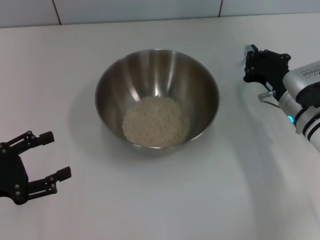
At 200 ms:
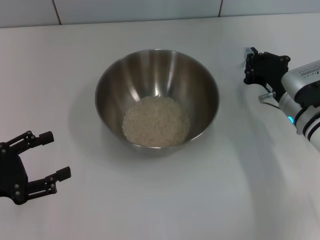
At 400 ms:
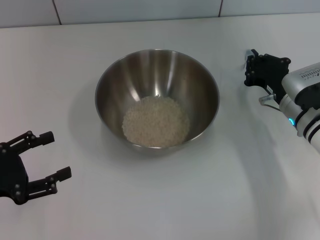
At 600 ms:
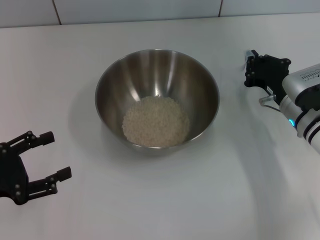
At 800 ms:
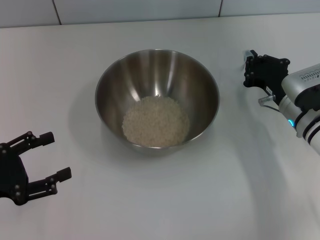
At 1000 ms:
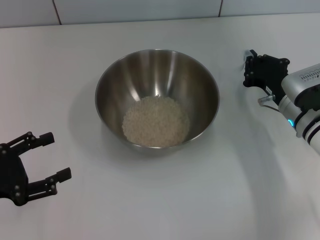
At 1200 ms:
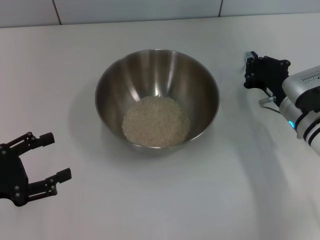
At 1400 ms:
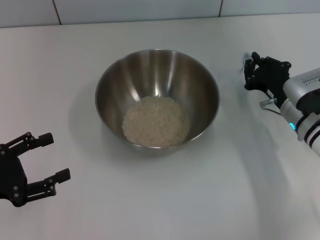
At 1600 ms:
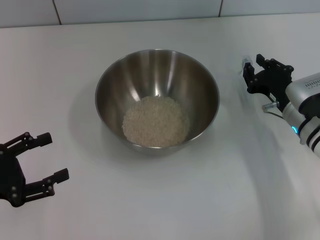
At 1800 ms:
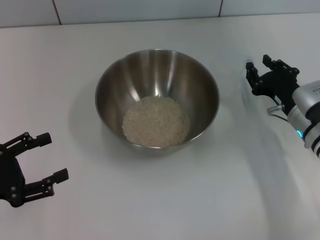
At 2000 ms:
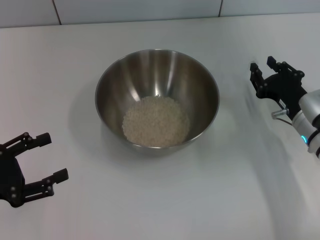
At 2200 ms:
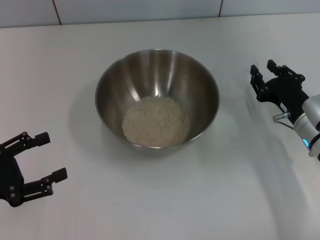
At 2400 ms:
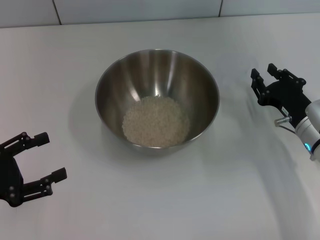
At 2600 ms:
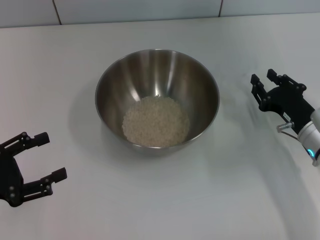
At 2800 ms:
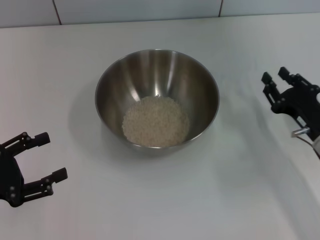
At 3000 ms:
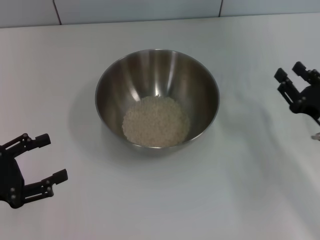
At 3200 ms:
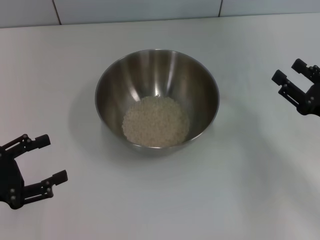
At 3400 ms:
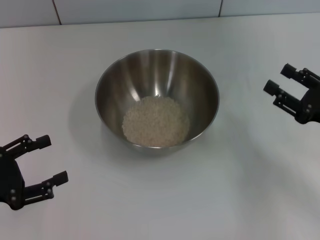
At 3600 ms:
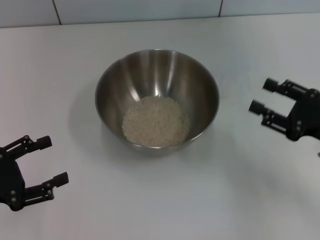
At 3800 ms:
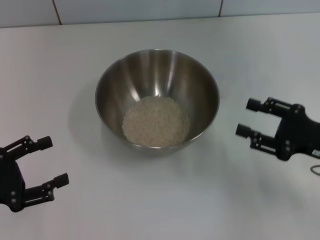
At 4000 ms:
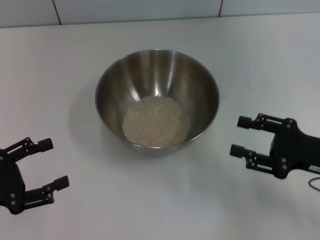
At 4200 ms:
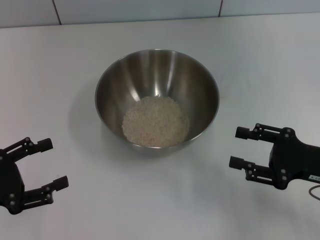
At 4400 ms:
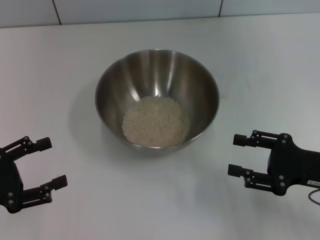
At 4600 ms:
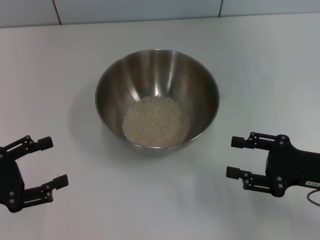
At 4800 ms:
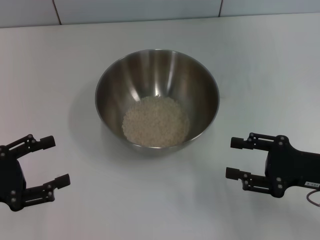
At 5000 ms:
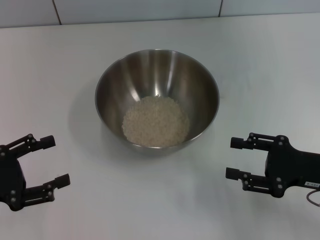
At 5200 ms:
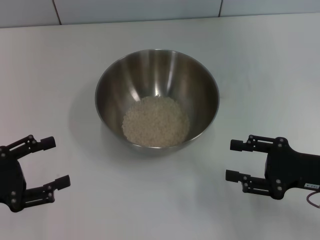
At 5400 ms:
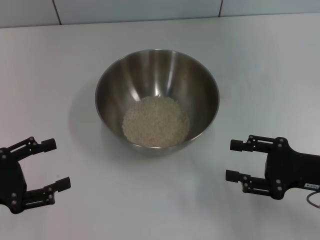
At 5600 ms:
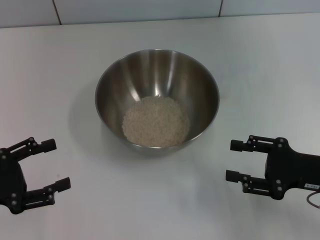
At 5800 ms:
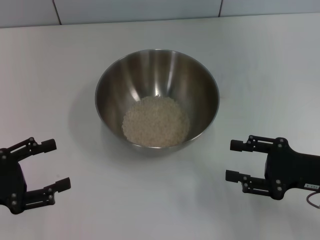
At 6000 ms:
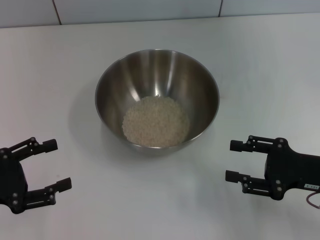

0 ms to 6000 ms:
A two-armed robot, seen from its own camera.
Task of the whole recording: Place the bowl in the middle of the table with one hand and pour the rice from the grain cup into it with the other hand.
Step, 0 ms to 2600 ms: Place the cup on the table with the right gripper.
0 ms to 1600 ms: The grippers move only a little.
1600 ms to 3000 ms: The right gripper travels backward and to the right by approximately 10 cm, and opens up.
4400 ms to 6000 ms: Both grippers stay about where they are.
